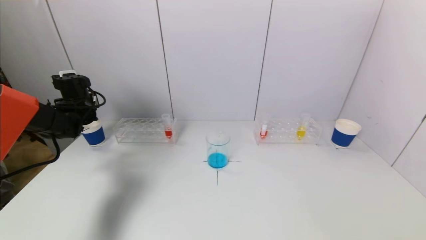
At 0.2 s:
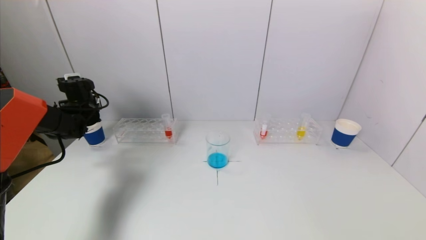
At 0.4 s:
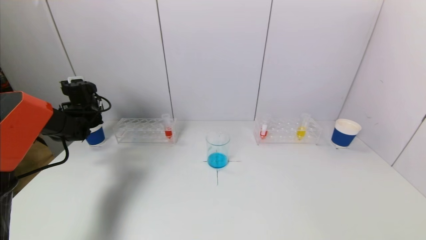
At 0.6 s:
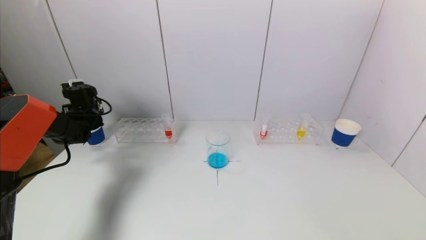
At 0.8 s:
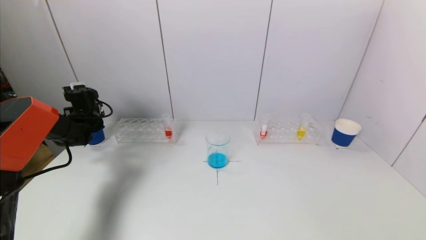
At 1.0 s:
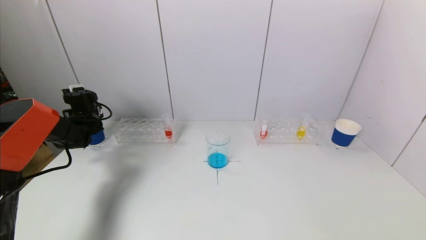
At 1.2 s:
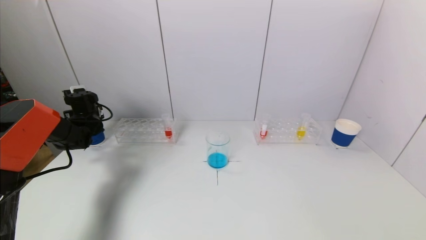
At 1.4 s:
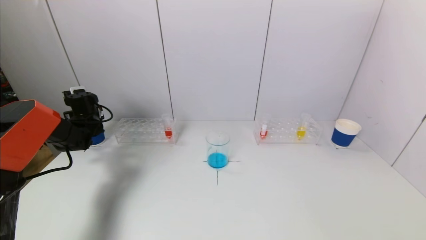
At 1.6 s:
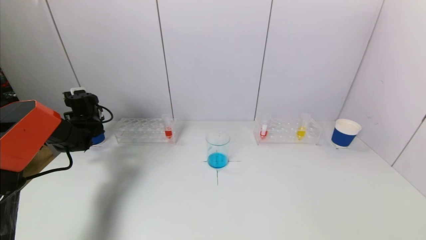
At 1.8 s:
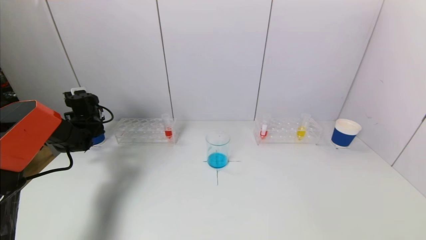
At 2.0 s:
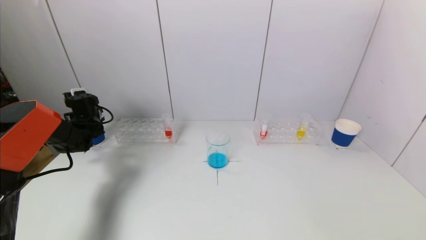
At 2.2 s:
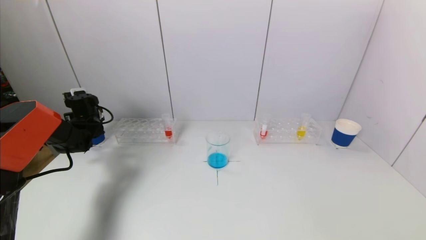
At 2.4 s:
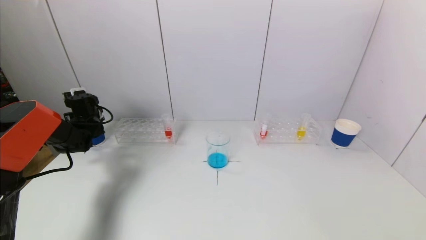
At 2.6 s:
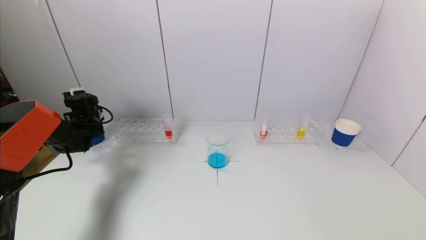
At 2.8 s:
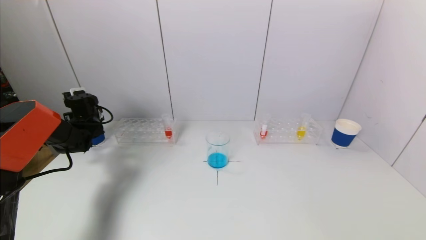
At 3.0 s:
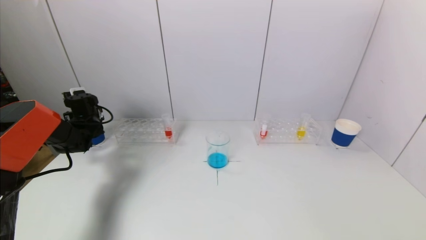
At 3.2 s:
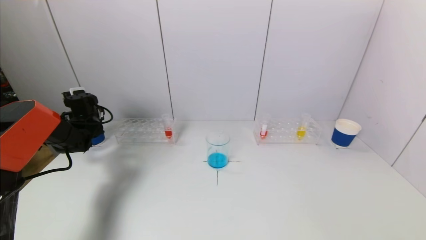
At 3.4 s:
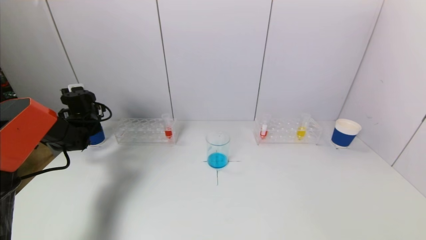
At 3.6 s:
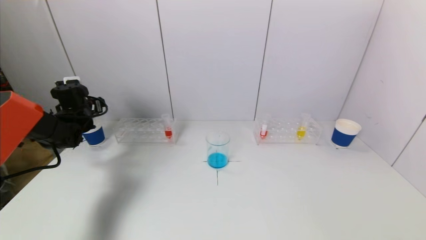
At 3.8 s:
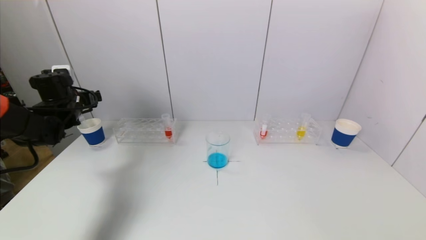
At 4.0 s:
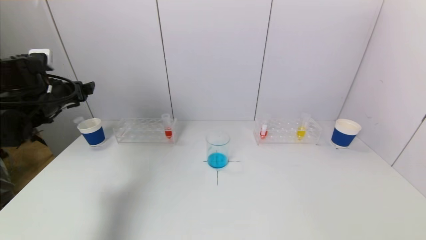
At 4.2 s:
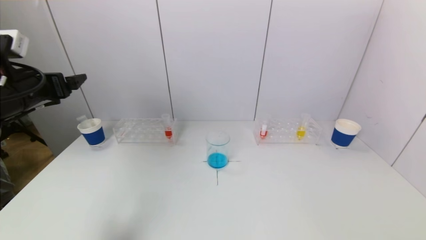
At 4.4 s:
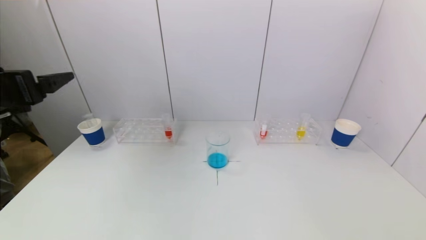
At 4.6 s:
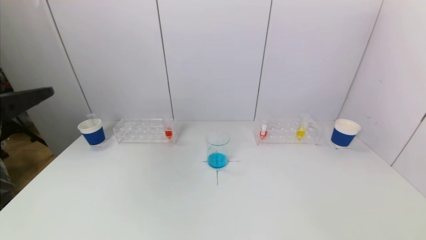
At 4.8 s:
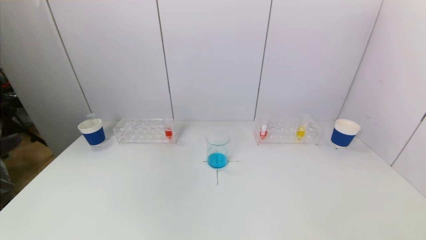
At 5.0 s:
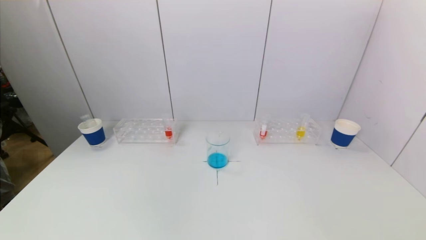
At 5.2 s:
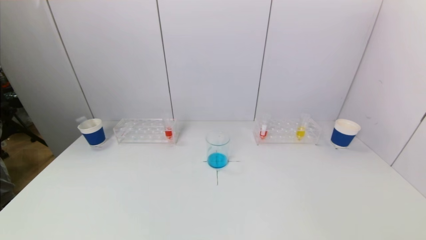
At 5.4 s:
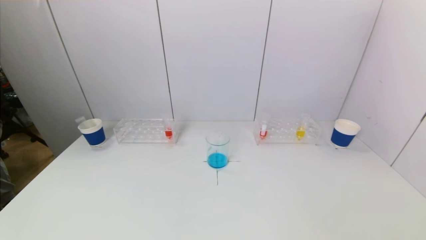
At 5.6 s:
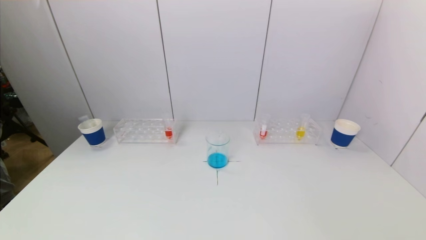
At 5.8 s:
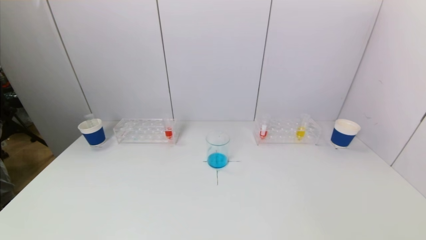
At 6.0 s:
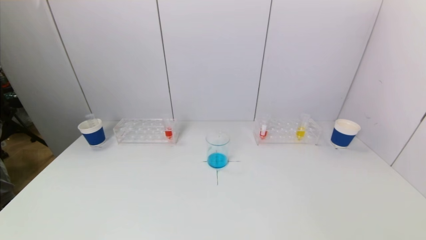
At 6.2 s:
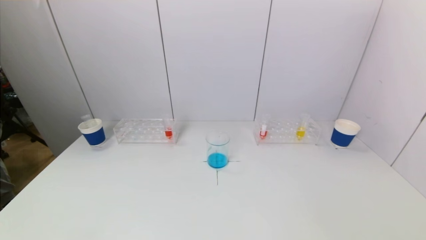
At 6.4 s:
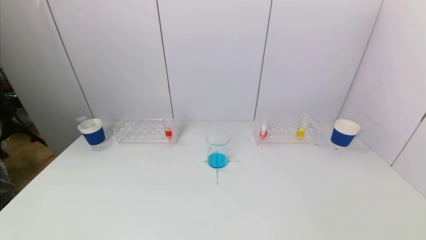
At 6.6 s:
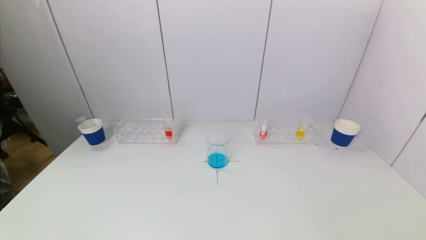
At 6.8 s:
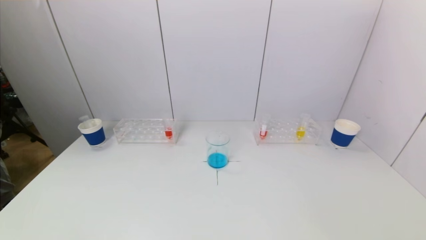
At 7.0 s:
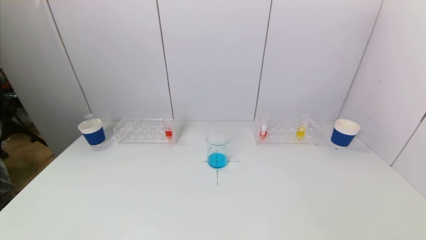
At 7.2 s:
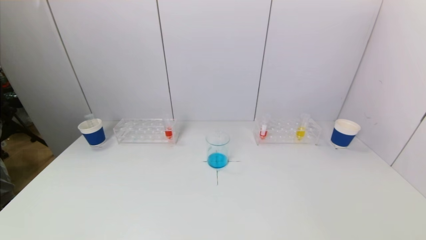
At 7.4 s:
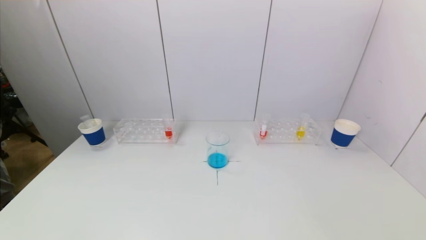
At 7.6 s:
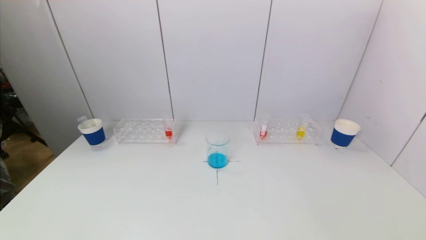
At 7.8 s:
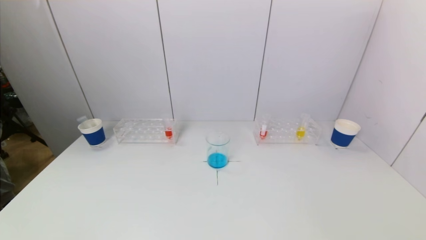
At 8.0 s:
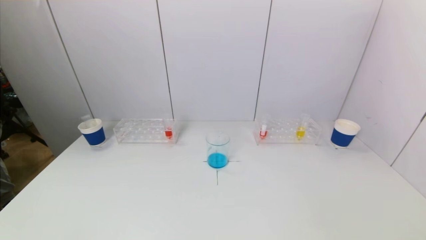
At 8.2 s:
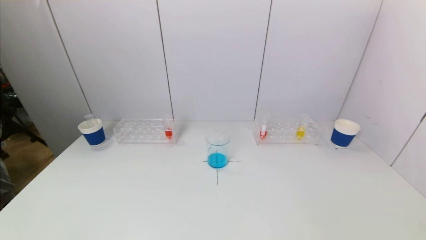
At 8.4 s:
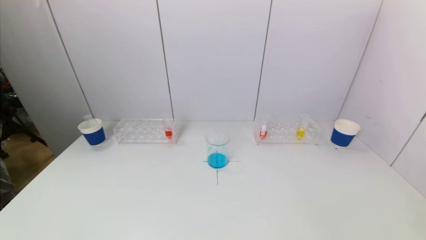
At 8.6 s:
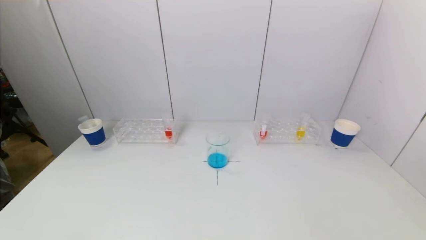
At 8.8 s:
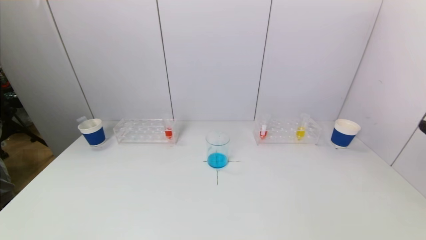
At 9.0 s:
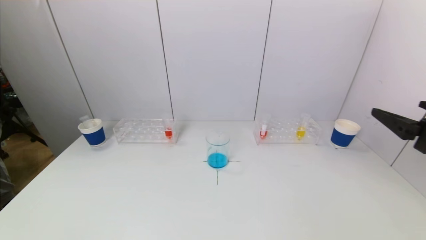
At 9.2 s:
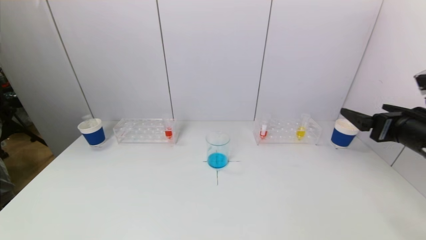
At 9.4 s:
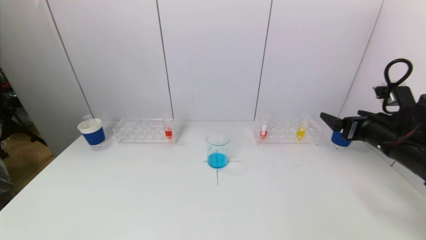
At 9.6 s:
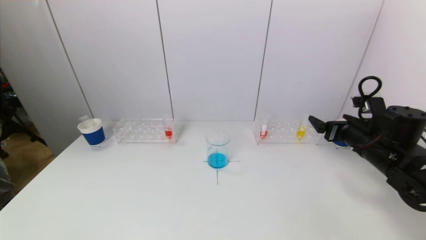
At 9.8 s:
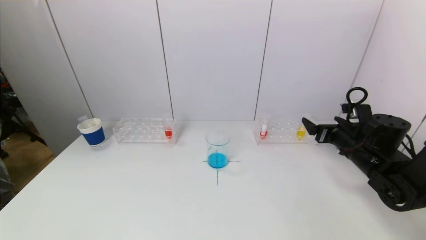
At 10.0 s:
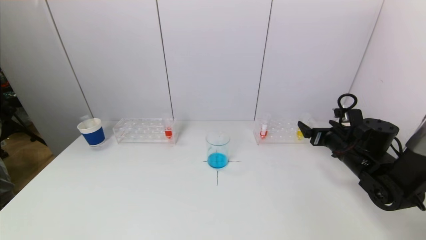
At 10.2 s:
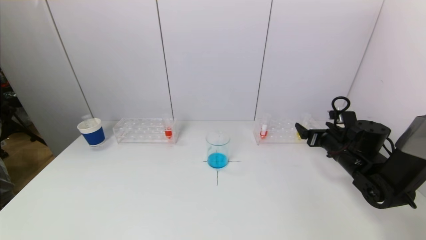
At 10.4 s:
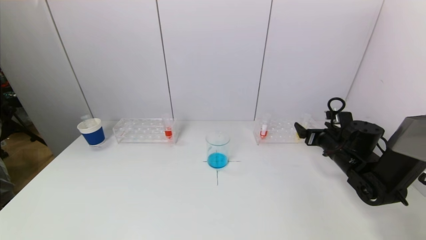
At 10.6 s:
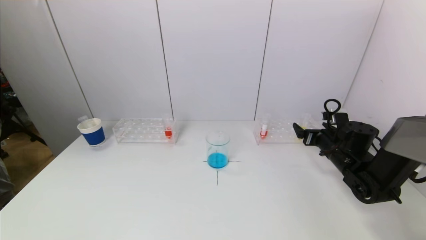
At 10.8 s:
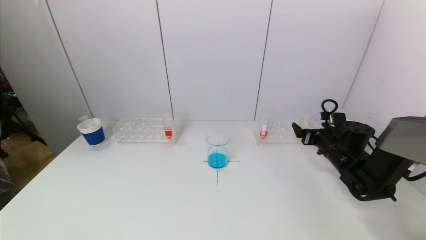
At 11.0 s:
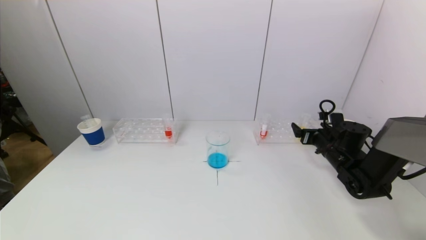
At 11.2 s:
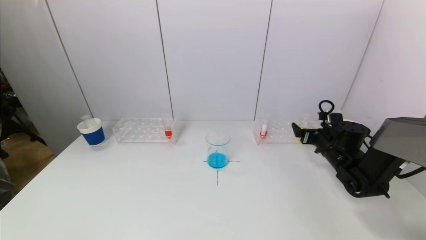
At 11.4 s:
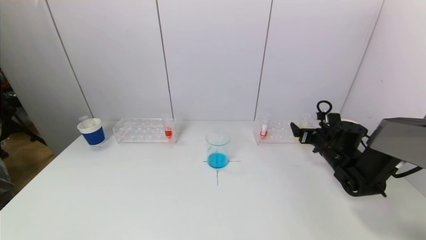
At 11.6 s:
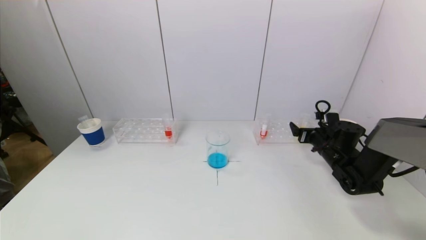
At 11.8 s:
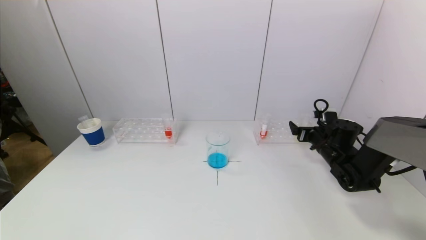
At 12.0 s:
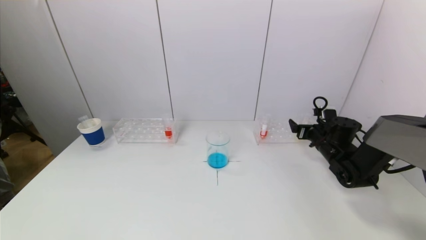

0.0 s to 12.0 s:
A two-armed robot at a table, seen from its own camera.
Task of the whole recording: pick up a test tube with pigment on left test tube rack and a test tube with pigment on right test tube rack by grippers and pour them into the beaker.
Step, 0.0 to 3.4 s: Place the test tube into the paper cup with the left gripper.
0.0 to 1.6 s: The left gripper travels downward by approximately 5 cm.
3.0 to 4.4 s: The left gripper travels backward and upward by some 35 cm.
4.4 to 6.0 s: The left gripper is displaced backward and downward by approximately 30 cm.
7.6 to 9.0 s: The right gripper heads forward and upward, covering approximately 25 cm.
9.0 to 10.4 s: The right gripper moves forward and downward, roughly 25 cm.
10.4 to 12.0 s: The right gripper shifts roughly 5 cm forward.

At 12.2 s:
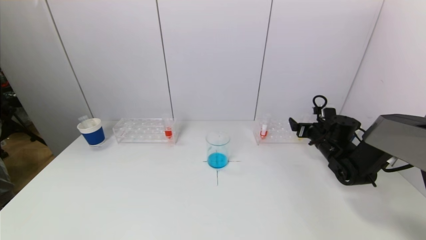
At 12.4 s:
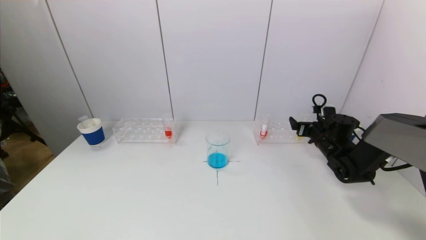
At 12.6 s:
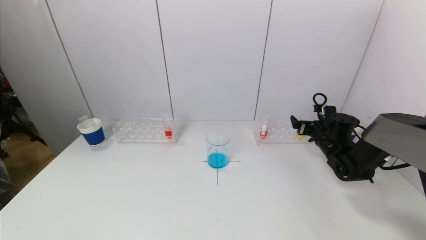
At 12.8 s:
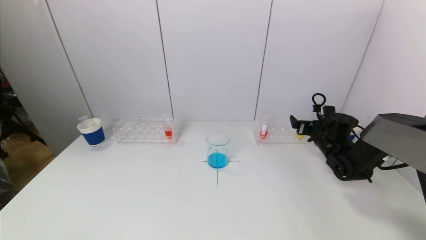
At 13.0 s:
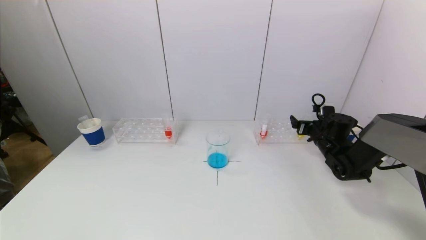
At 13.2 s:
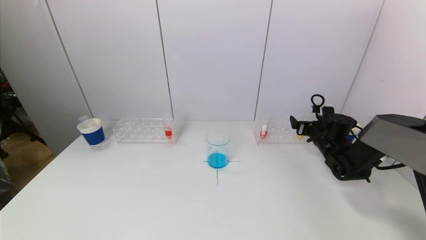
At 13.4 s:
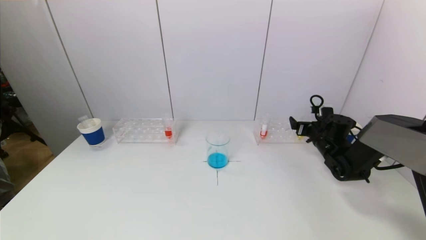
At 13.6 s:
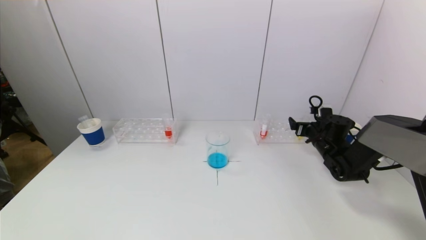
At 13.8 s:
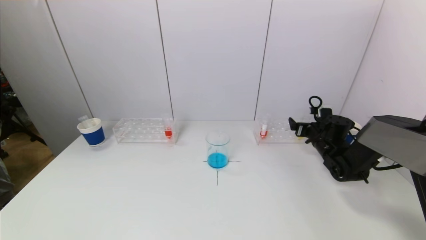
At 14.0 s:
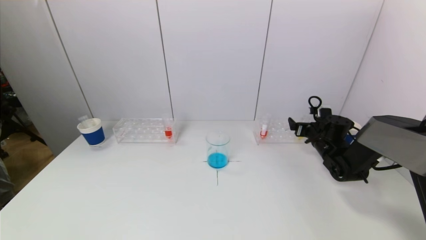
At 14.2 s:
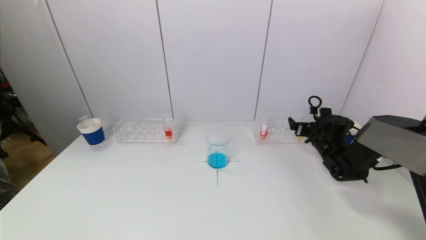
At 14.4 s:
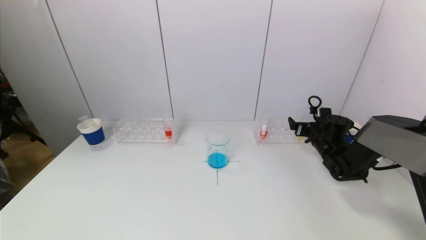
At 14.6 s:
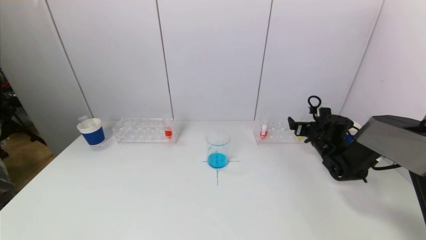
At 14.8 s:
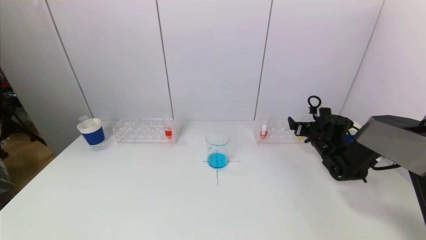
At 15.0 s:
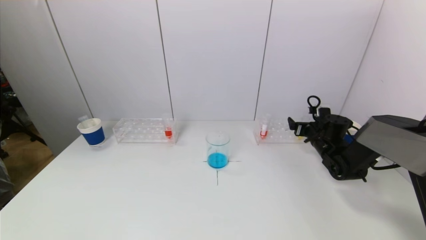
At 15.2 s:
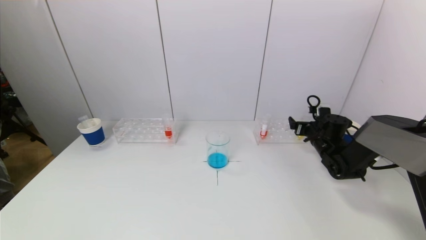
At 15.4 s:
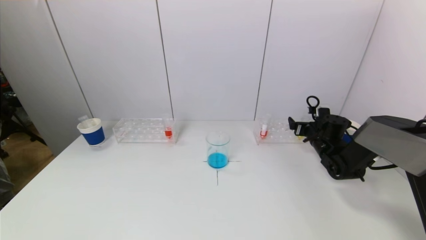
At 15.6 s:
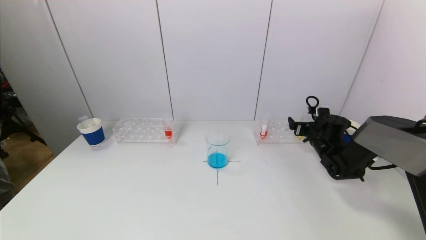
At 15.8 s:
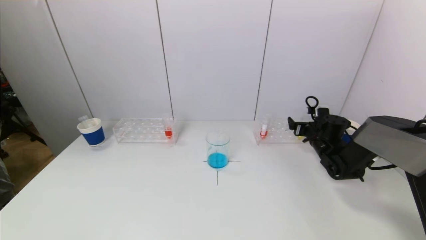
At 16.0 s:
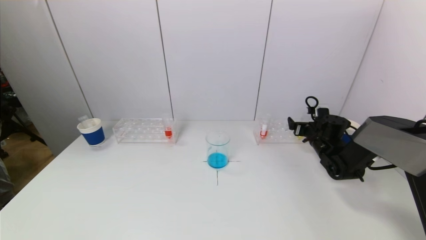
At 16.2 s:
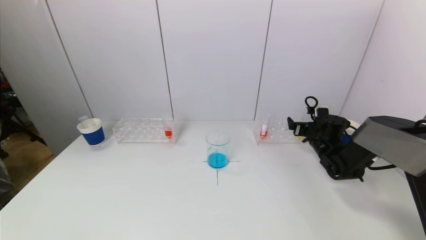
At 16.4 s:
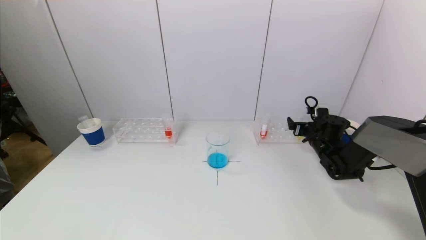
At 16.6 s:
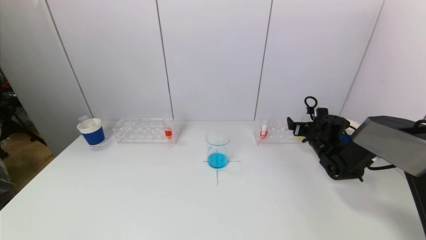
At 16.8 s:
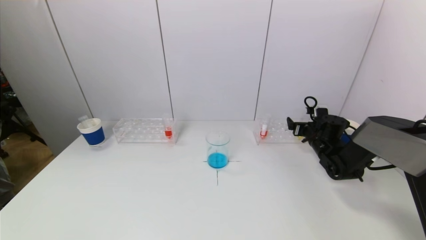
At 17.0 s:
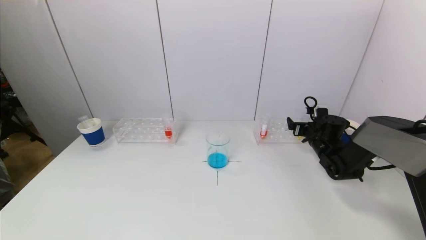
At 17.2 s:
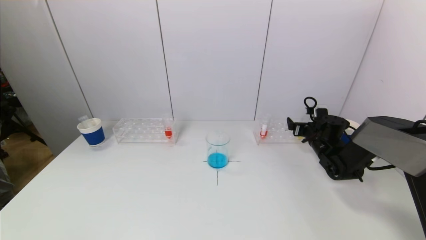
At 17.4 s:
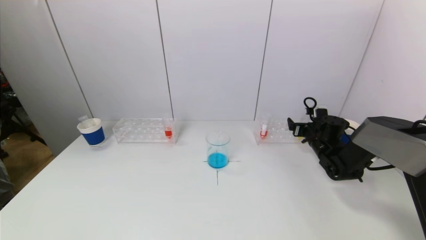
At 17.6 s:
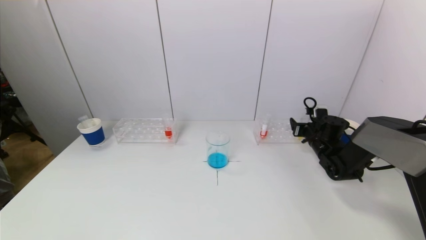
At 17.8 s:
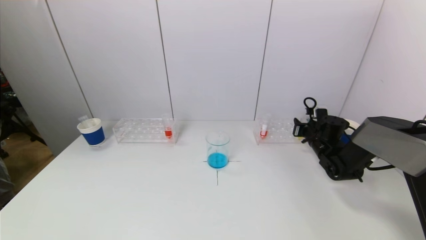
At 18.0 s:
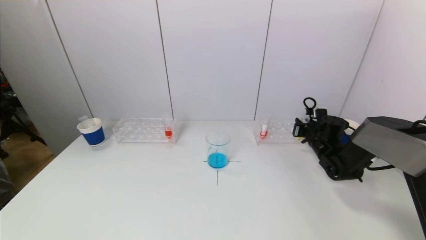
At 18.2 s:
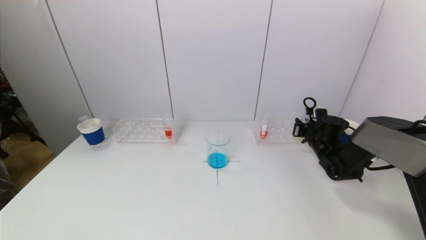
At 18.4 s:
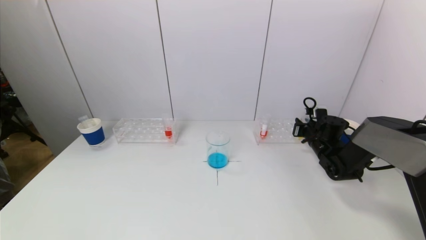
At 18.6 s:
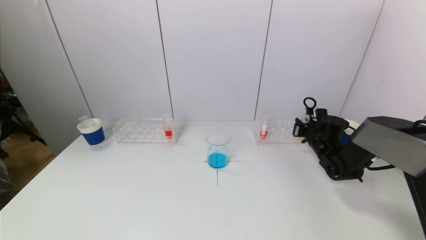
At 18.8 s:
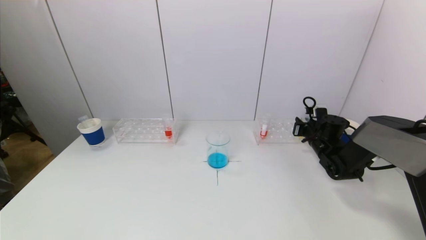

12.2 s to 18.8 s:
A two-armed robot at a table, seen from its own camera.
Task of the whole recording: pick up a test tube with pigment on left test tube rack and a test tube with pigment on right test tube rack by grippers and pour them into the beaker.
Step, 12.2 to 18.2 s: Grasp the yellow reagent with the right gripper.
12.2 to 13.8 s: The grippers move only a little.
13.8 to 17.2 s: Both grippers stay about where they are.
